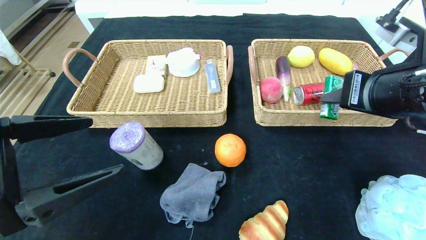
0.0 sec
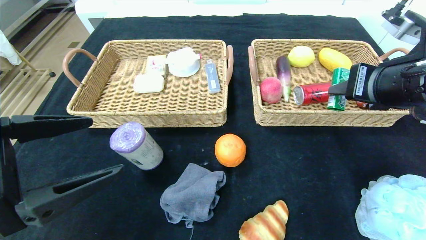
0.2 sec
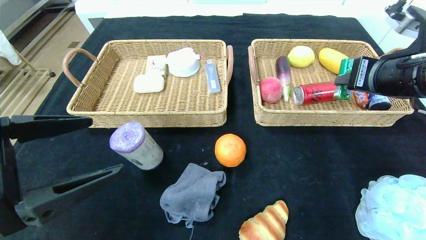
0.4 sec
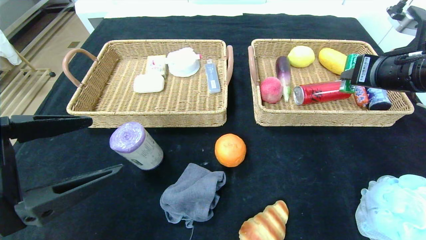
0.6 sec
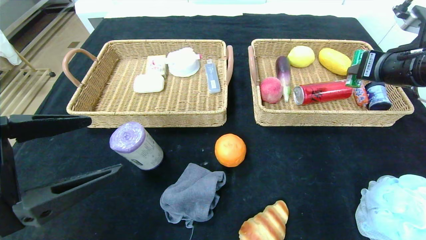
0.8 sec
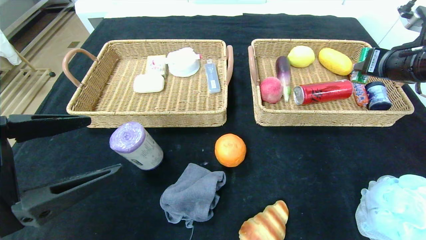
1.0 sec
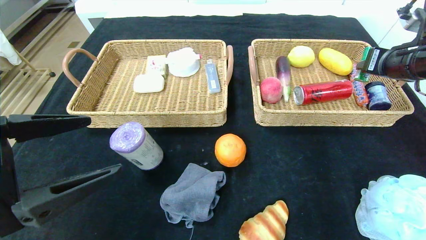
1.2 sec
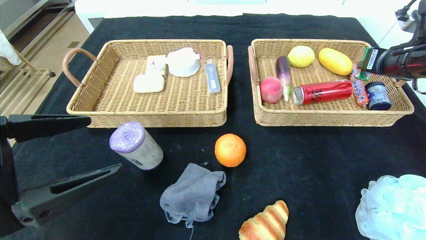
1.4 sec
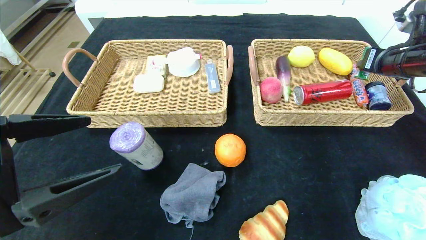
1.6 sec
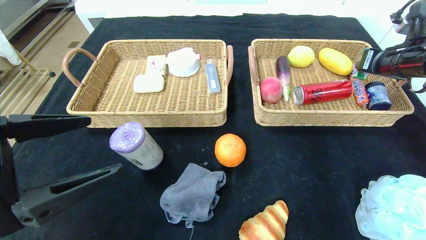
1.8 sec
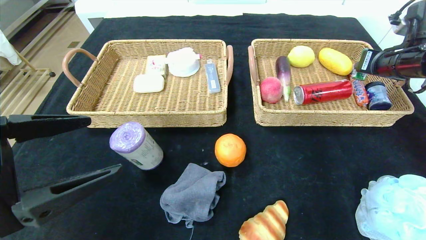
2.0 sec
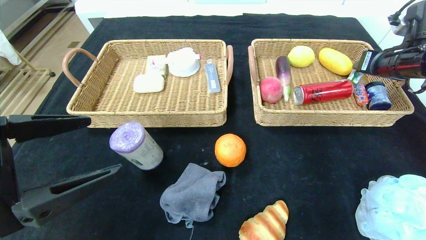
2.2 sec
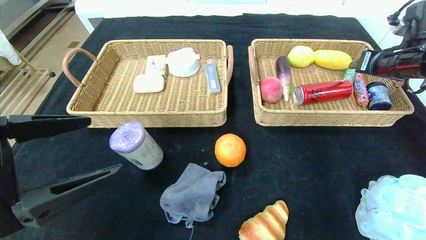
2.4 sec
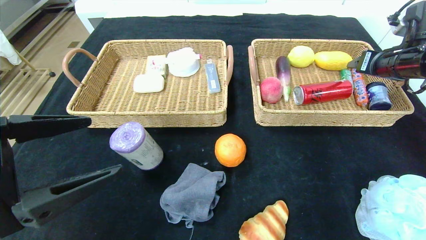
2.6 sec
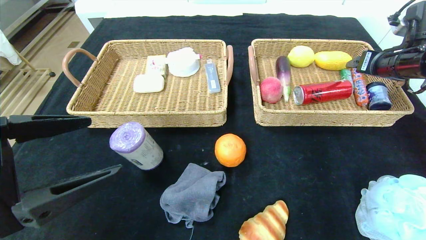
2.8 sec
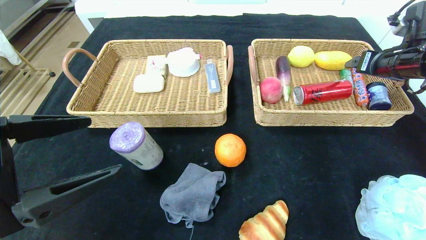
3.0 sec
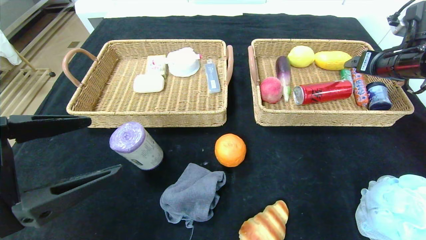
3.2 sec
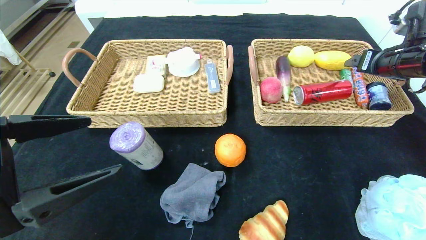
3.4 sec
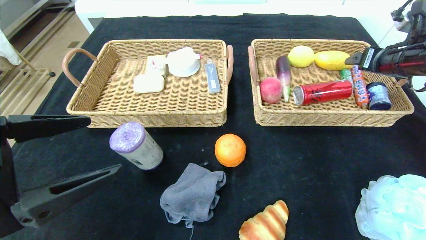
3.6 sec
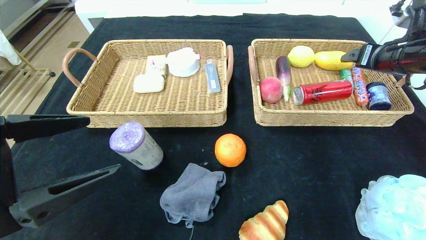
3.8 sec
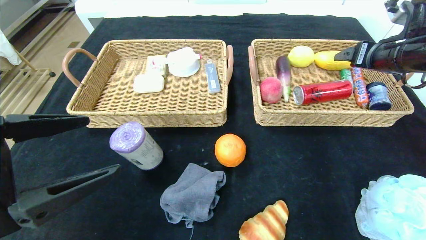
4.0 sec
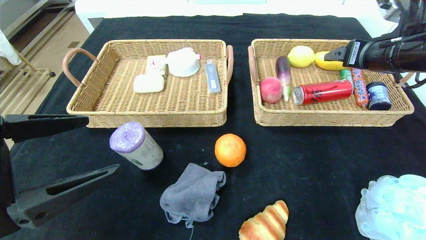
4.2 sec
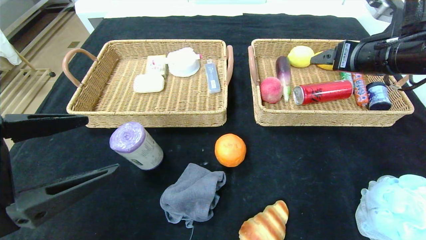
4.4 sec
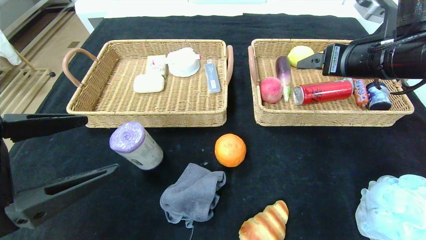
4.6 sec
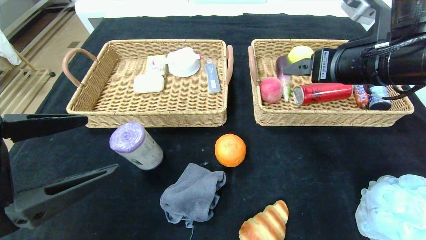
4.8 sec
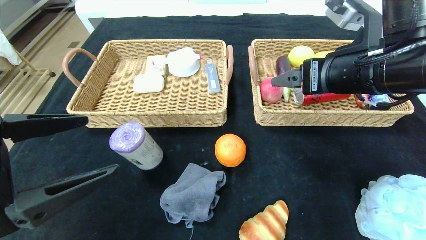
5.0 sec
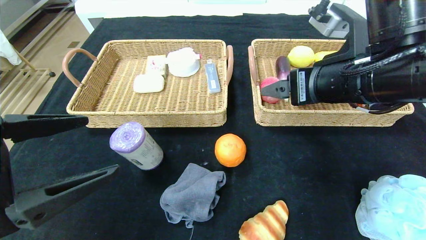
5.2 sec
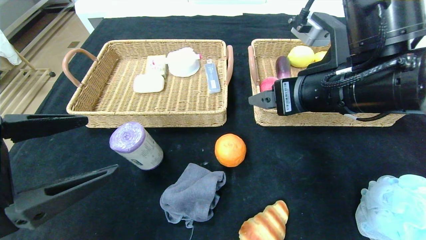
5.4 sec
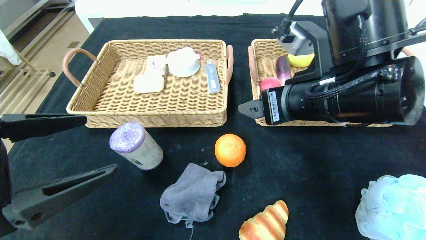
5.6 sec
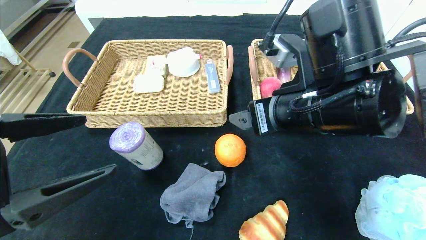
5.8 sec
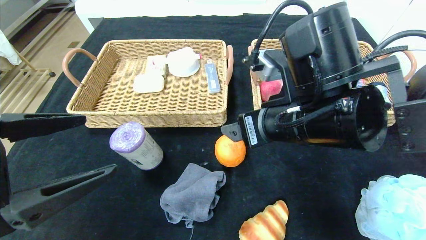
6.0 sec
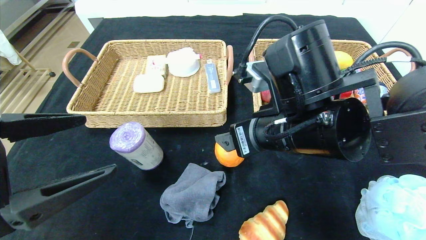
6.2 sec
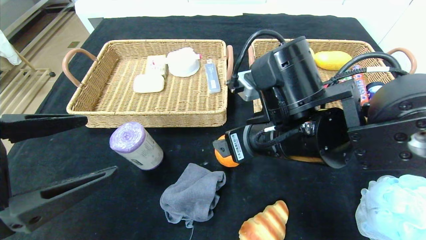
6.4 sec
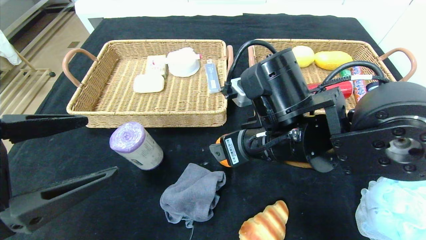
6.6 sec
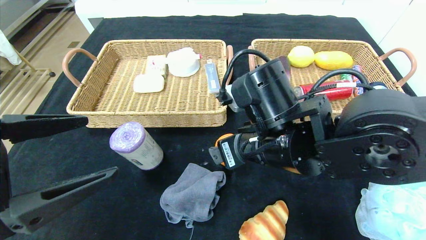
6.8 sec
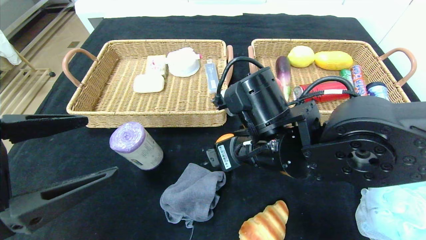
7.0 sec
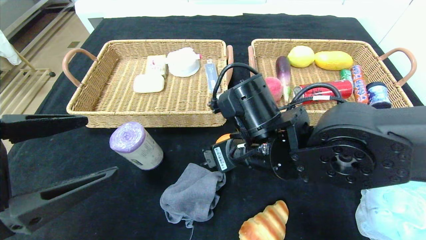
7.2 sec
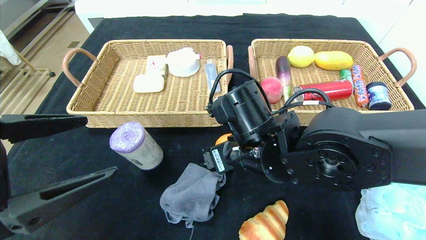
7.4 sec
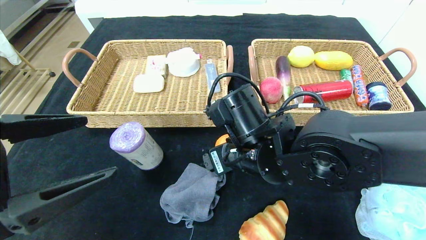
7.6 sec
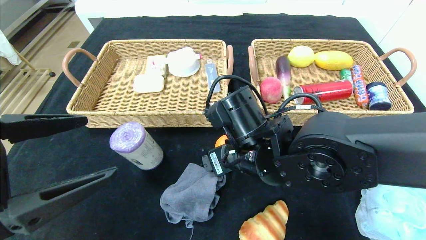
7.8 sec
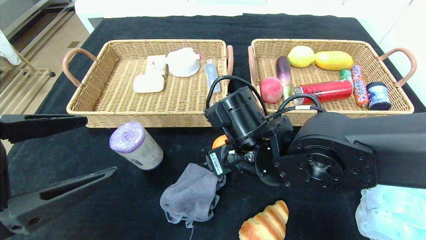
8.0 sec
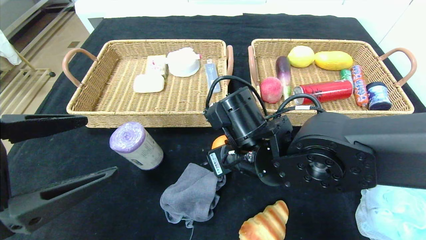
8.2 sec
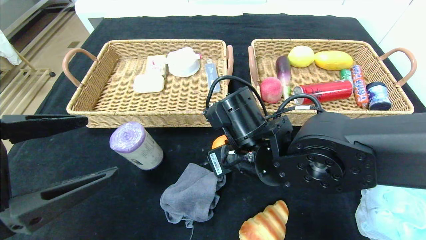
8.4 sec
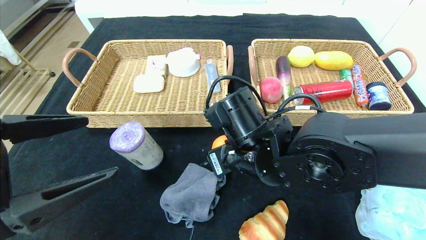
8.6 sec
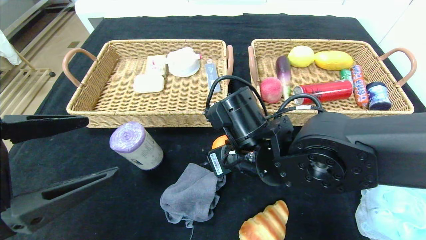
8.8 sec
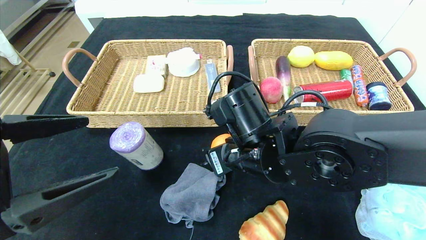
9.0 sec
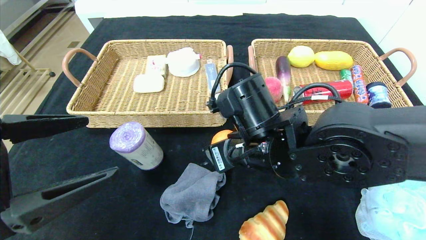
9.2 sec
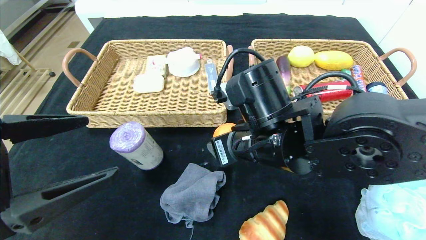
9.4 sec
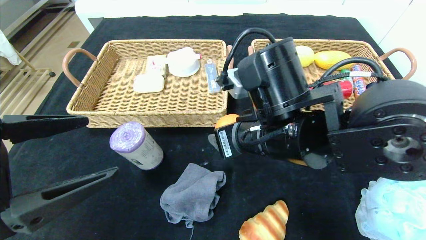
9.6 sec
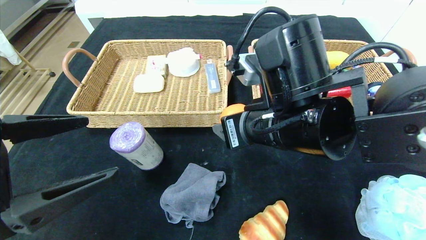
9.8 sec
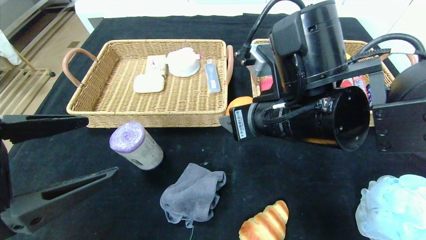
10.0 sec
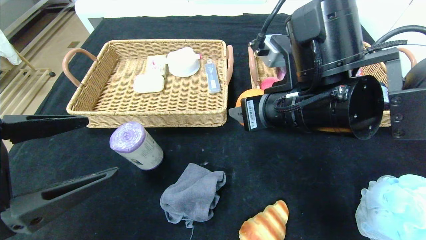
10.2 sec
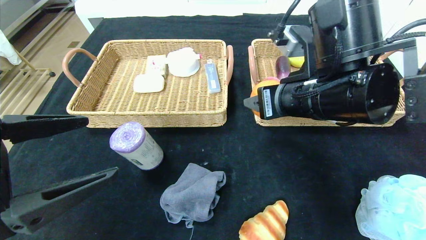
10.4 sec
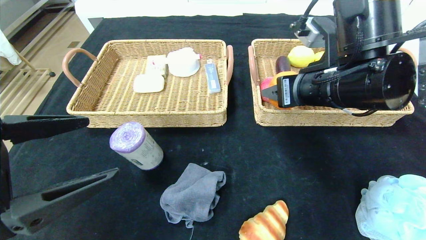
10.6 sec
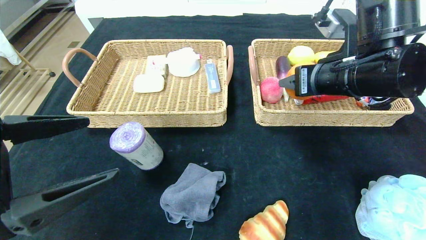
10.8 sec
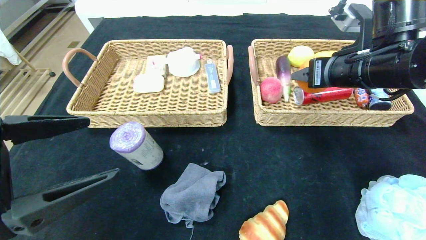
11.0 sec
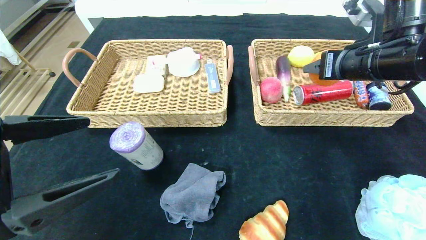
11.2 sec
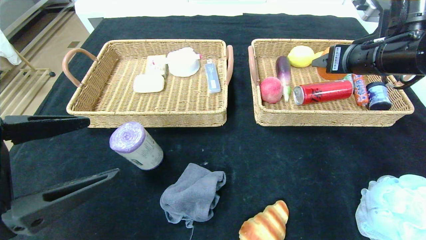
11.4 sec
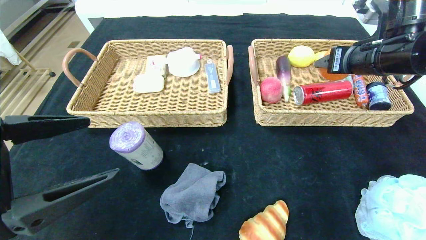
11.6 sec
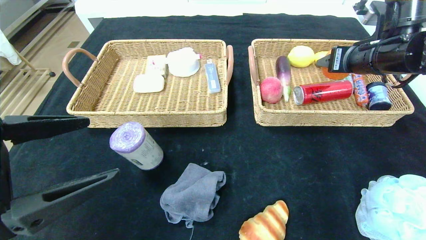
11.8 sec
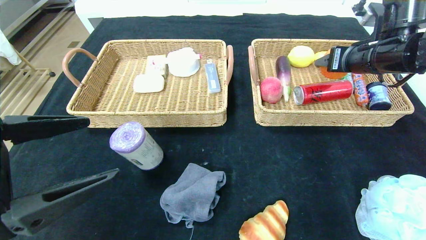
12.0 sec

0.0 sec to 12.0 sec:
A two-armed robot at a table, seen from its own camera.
Step, 0.0 sec to 2.4 sec: Grasp the green chewing gum and put it in the right basket.
0.0 sec to 1.6 sec: The right gripper travels forward and to the right by some 20 cm.
1.6 sec to 3.0 sec: The right gripper opens up.
3.0 sec to 4.4 sec: The right gripper travels to the left and backward by about 10 cm.
4.4 sec to 6.0 sec: The right gripper goes about 20 cm to the left and backward.
6.0 sec to 7.6 sec: The right gripper heads downward and to the left, covering some 10 cm.
7.6 sec to 9.0 sec: The right gripper closes up.
9.0 sec to 10.4 sec: The right gripper heads upward and to the right, covering approximately 10 cm.
10.4 sec to 12.0 sec: The right gripper moves to the right and forward, about 20 cm.

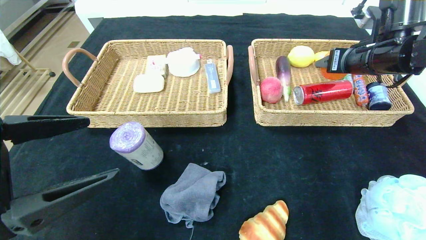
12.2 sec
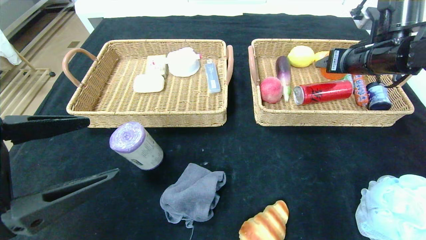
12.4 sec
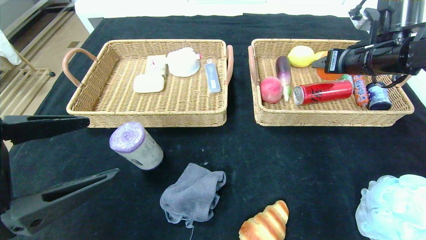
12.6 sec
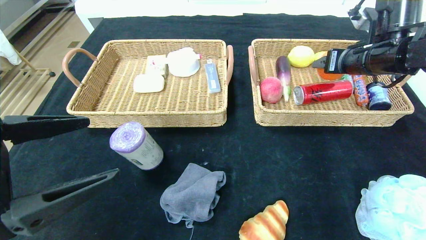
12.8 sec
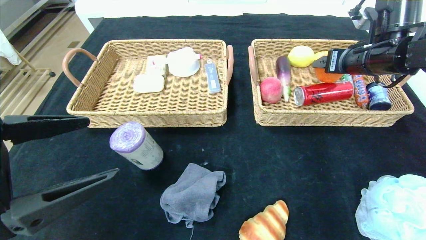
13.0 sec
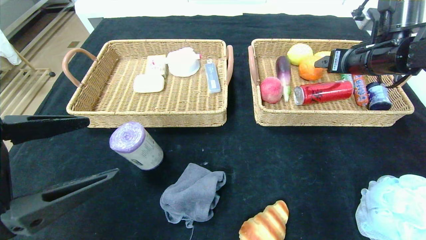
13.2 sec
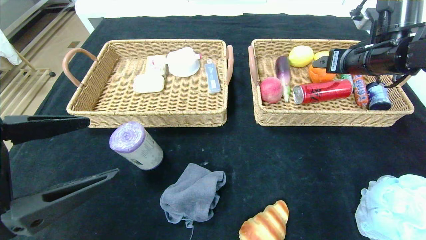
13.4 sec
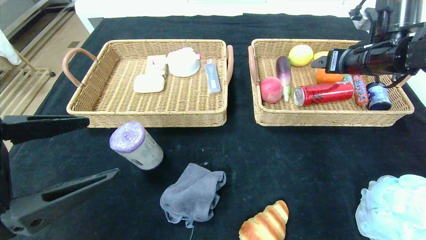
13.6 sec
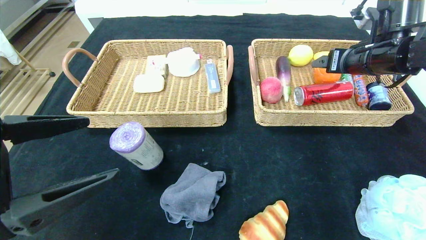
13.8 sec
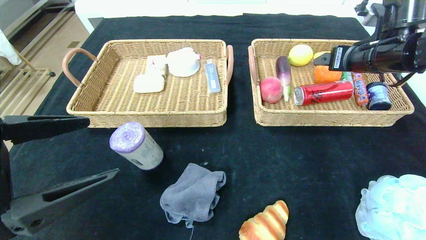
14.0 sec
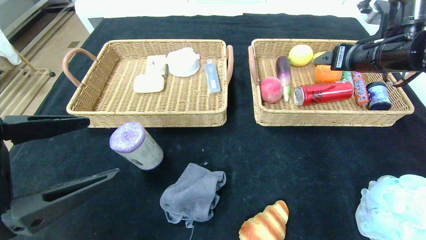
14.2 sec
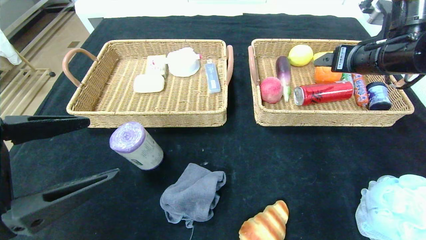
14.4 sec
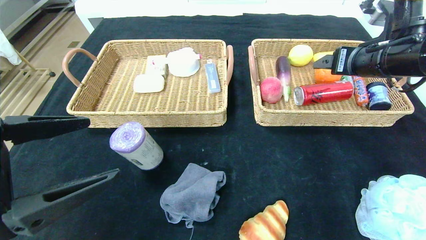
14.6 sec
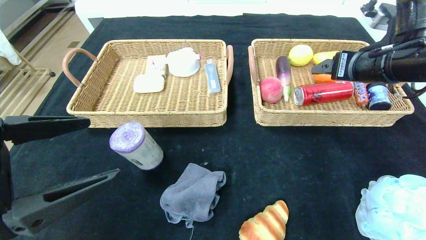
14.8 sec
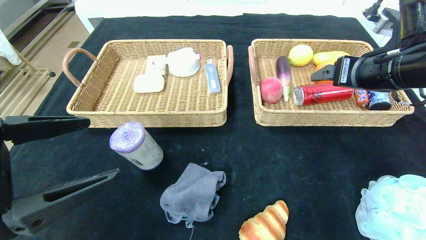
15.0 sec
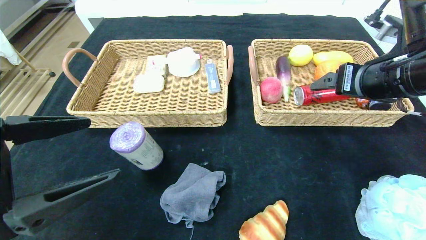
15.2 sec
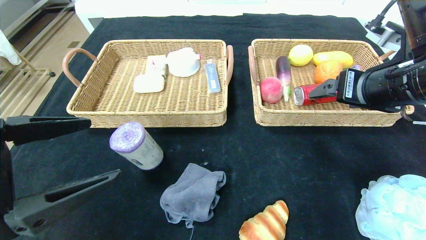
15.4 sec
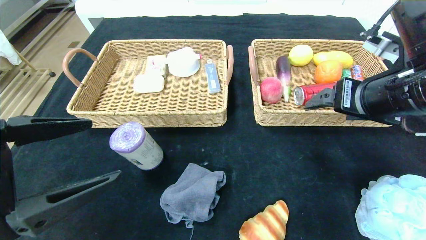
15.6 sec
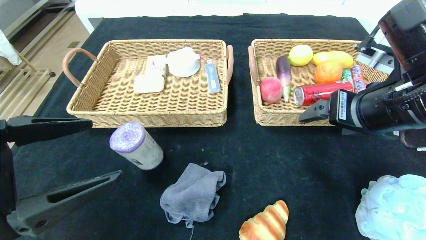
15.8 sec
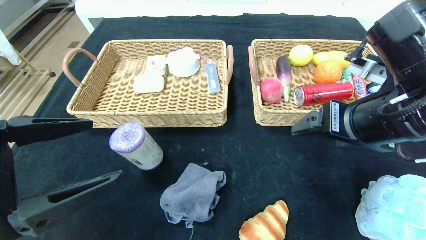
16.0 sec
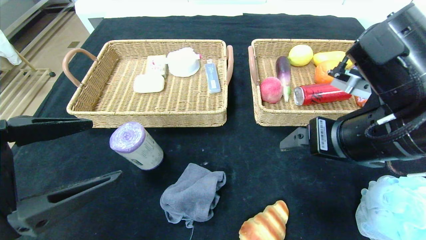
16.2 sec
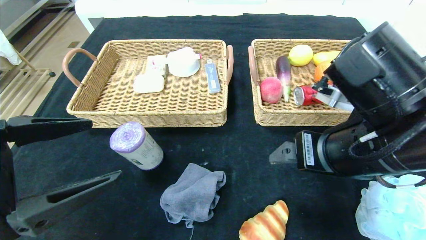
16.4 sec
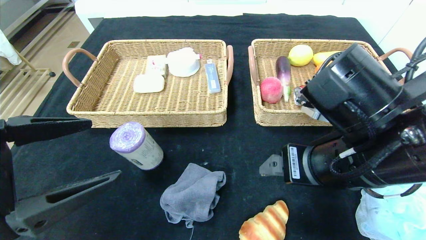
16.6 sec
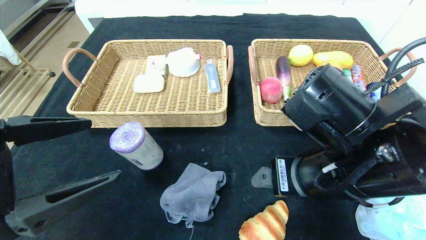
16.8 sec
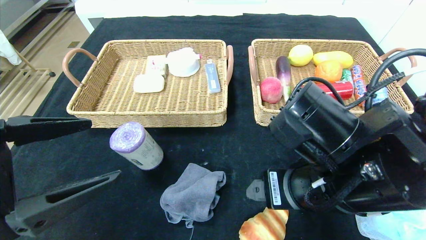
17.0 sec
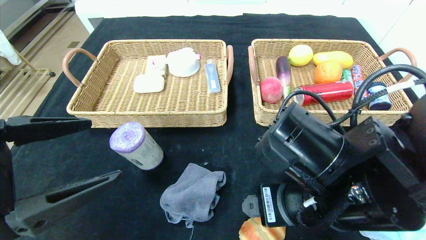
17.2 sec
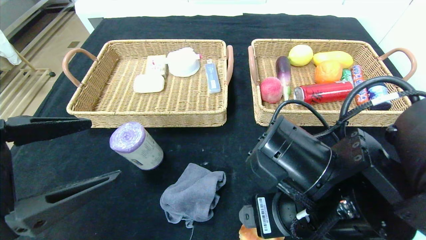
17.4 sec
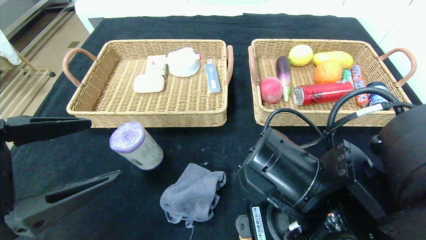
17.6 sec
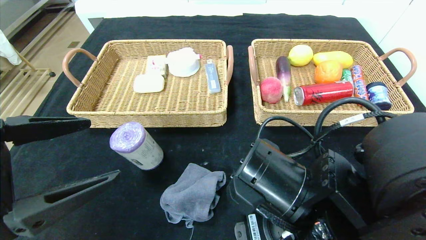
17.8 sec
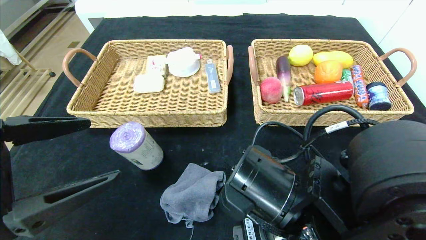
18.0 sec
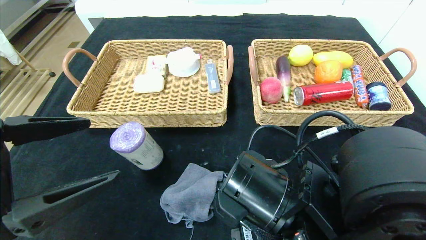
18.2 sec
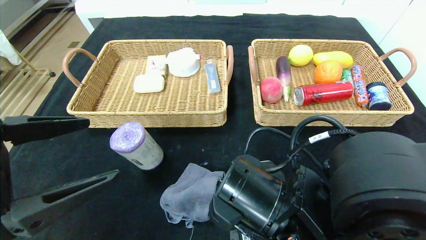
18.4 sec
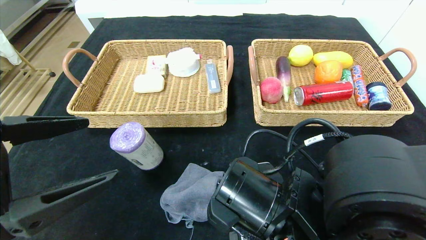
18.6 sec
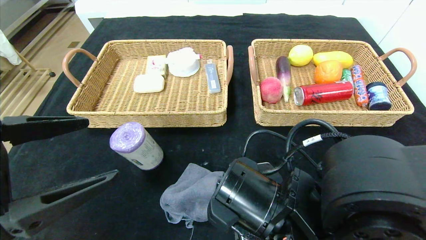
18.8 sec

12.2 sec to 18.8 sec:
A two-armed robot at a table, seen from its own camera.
12.2 sec to 13.8 sec: There are only small adjustments of the grippers.
13.8 sec to 15.4 sec: The right gripper travels backward by approximately 10 cm.
15.4 sec to 17.2 sec: The right gripper travels to the left, downward and backward by approximately 20 cm.
17.2 sec to 18.8 sec: The right gripper changes place by roughly 5 cm.
